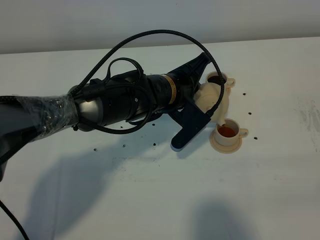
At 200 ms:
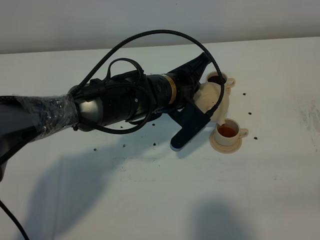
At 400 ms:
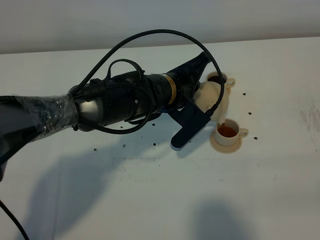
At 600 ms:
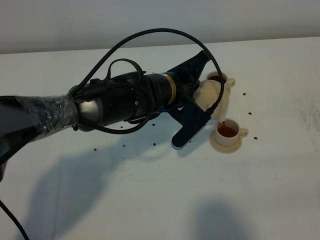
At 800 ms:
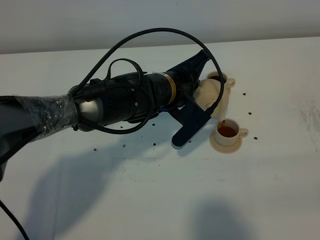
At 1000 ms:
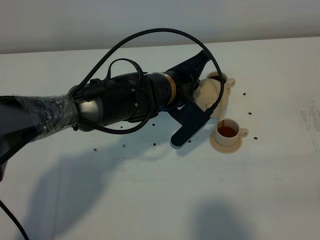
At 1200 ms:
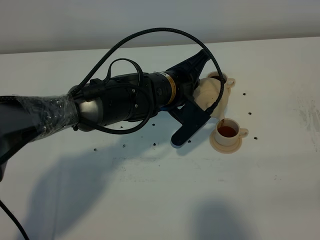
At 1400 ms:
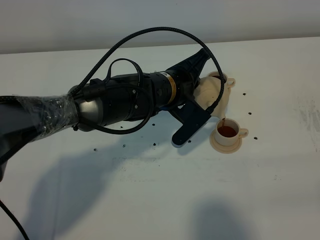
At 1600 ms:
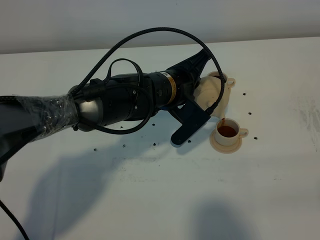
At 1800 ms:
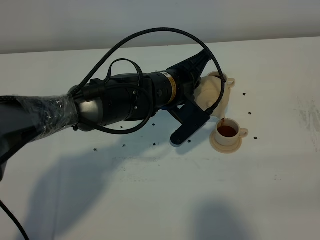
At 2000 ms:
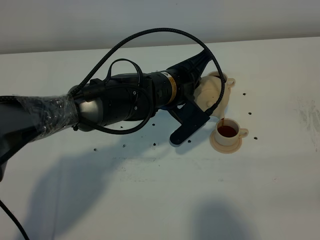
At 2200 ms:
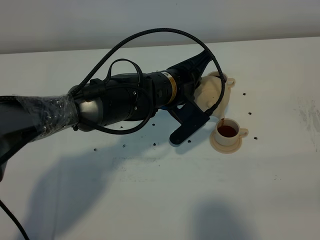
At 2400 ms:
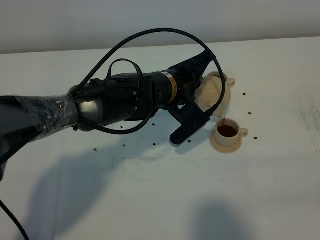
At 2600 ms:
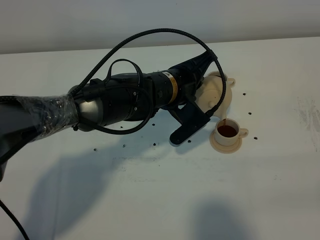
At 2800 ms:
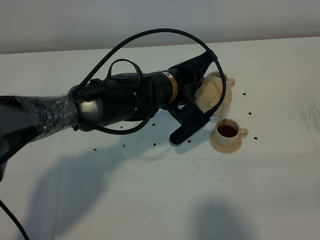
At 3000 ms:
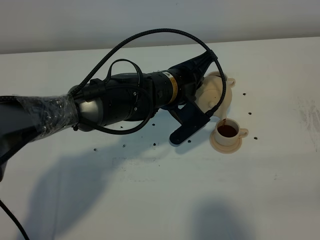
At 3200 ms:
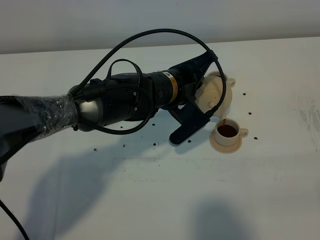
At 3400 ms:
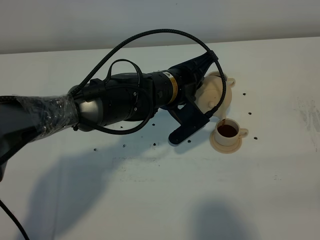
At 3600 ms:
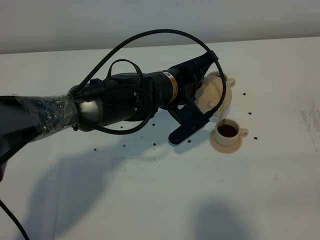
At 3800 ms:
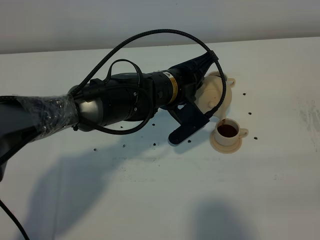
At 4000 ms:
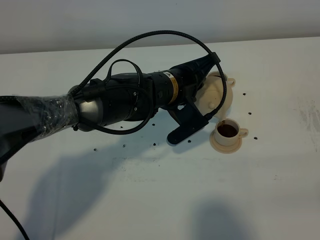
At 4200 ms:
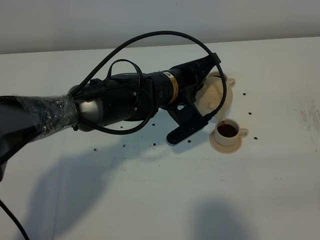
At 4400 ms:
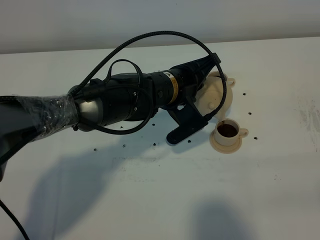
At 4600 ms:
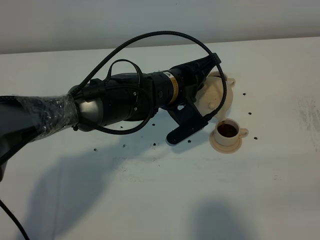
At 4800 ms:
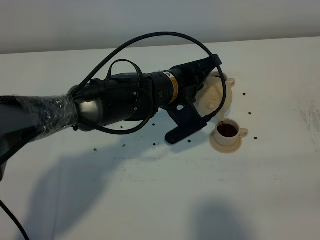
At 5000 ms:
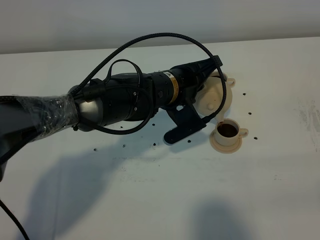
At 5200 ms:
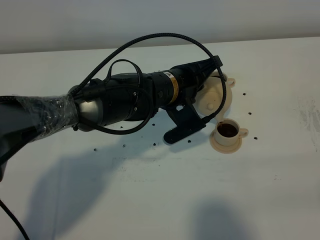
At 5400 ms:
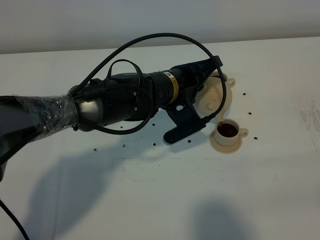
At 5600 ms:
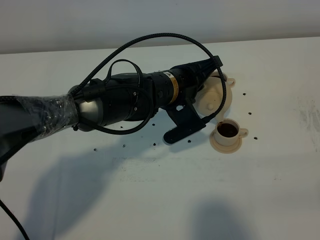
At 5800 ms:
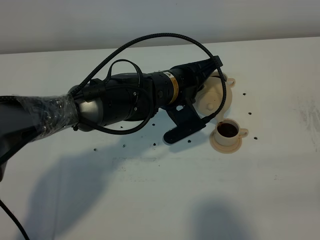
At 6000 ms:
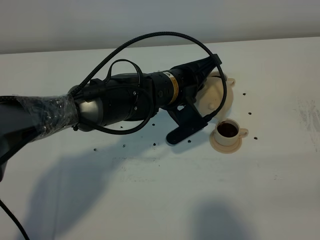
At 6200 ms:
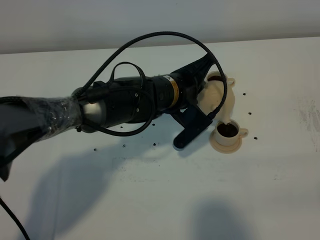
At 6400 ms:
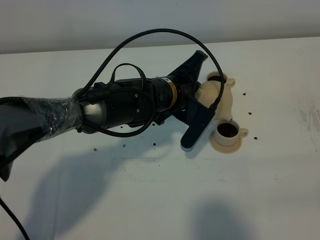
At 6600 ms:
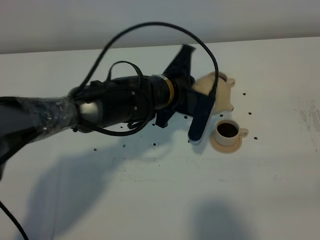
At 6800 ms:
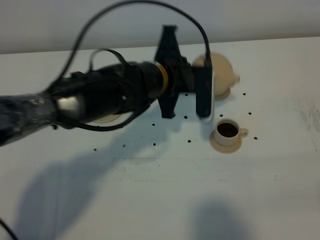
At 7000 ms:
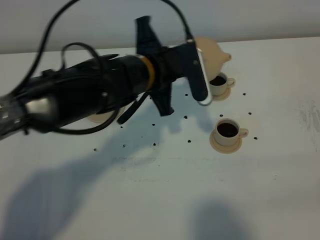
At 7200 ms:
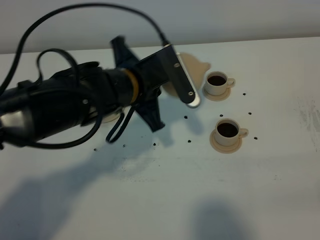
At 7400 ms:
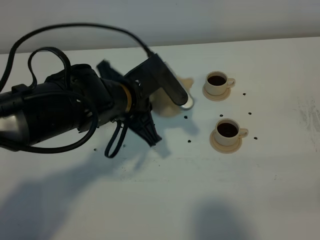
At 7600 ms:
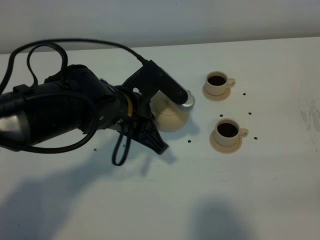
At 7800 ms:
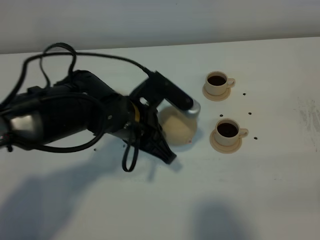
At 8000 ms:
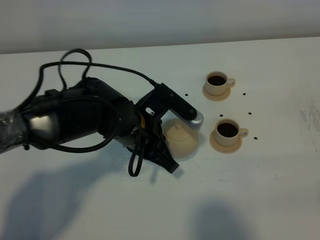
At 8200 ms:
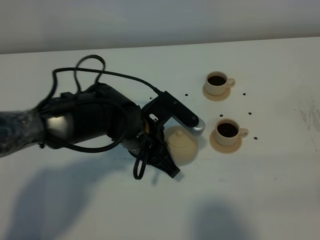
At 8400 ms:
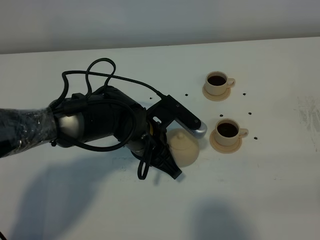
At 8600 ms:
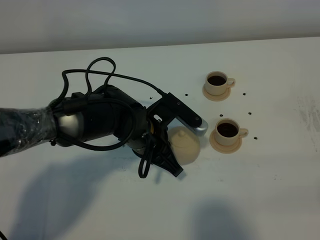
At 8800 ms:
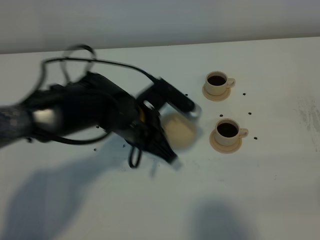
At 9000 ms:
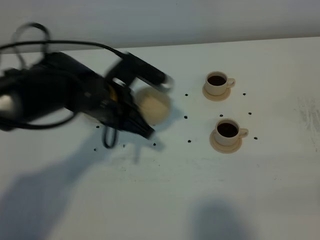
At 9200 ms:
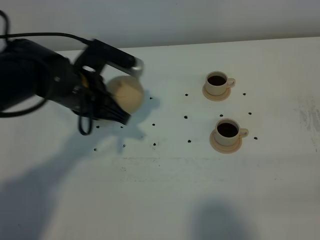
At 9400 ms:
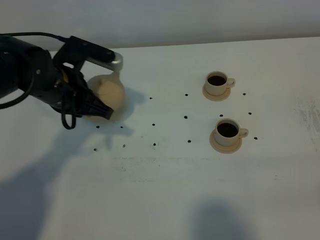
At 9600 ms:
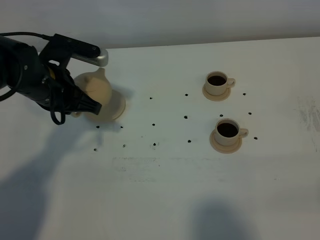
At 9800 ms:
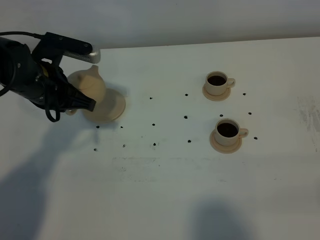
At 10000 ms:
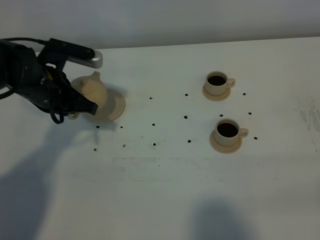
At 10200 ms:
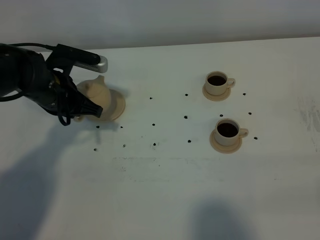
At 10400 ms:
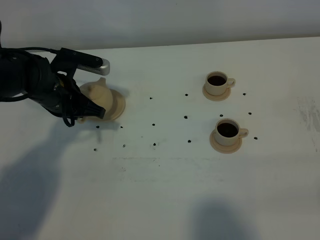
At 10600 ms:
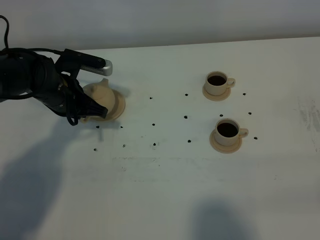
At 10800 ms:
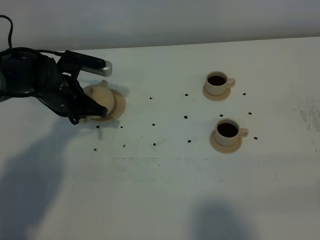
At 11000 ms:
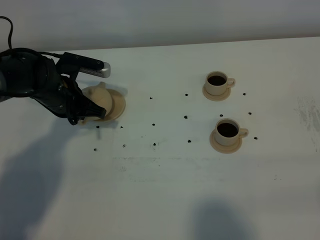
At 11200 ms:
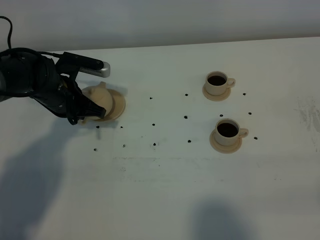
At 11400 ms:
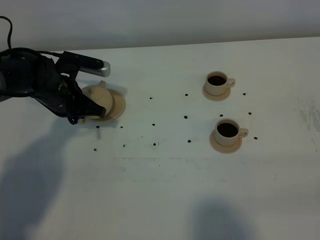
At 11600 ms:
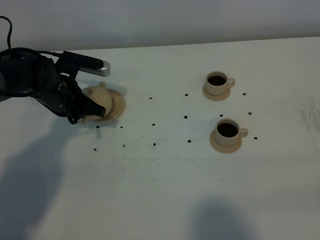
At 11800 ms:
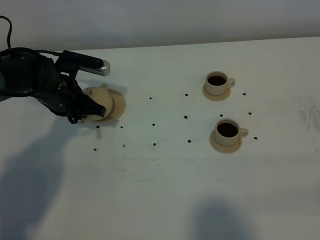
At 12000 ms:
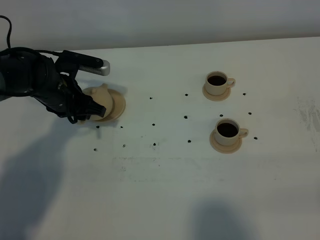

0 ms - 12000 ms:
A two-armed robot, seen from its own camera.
Task of the whole recording: grasp the brown teapot and pour the tea into the two brown teacups one by one, put the brown teapot back in its original place.
Step, 0 ms - 6600 ms: Pour tea into the teacup with the left gripper.
0 ms - 1600 ms: Both grippers stay put.
1600 ms - 3000 ms: Neither gripper changes place.
3000 ms - 4400 ms: The grippers make only small movements.
4400 ms - 6000 ms: Neither gripper changes place.
6000 ms - 7600 ms: The left gripper shifts about 10 cm to the left and backward.
7600 ms - 9000 ms: The left gripper moves about 5 cm.
9000 ms - 10400 ms: The left gripper moves to the left and forward, about 10 cm.
10400 ms - 12000 ms: The left gripper opens its fingers.

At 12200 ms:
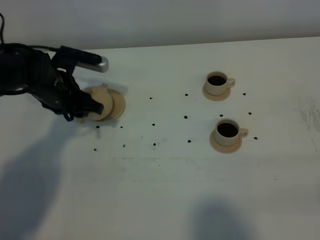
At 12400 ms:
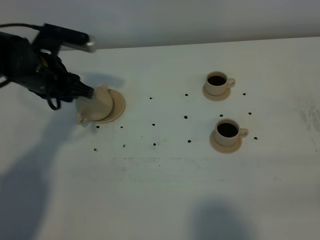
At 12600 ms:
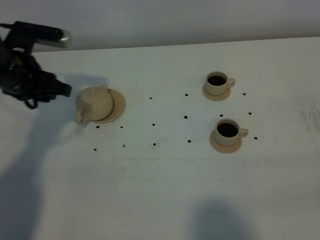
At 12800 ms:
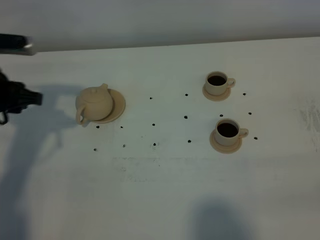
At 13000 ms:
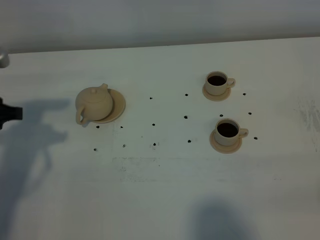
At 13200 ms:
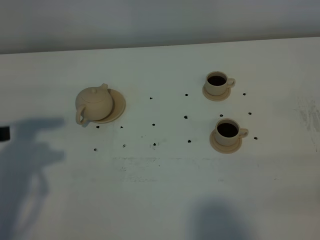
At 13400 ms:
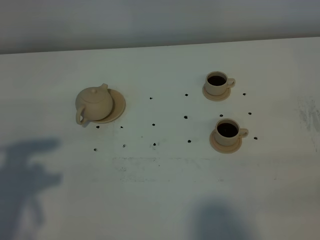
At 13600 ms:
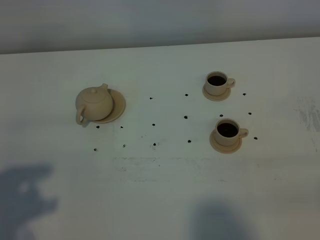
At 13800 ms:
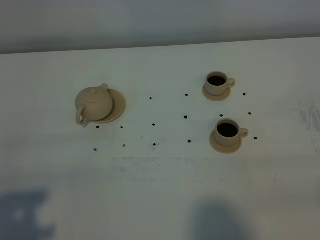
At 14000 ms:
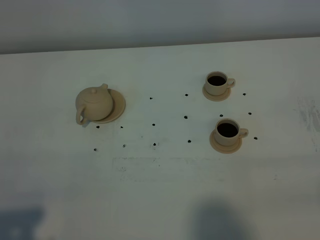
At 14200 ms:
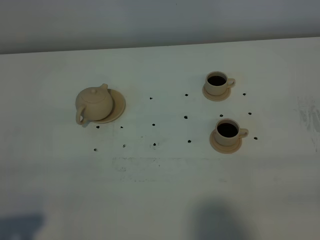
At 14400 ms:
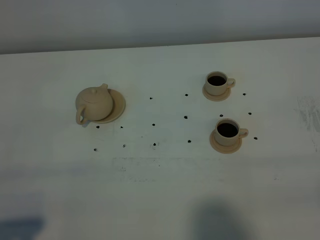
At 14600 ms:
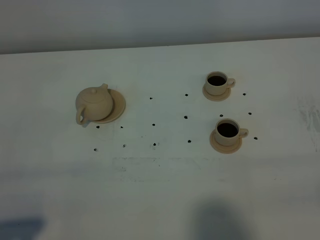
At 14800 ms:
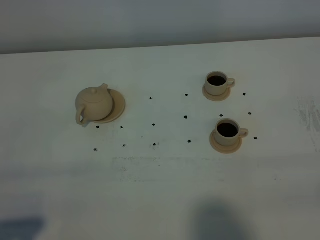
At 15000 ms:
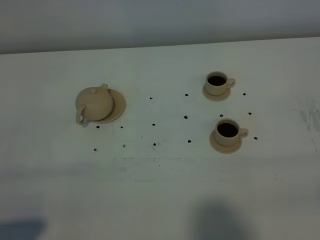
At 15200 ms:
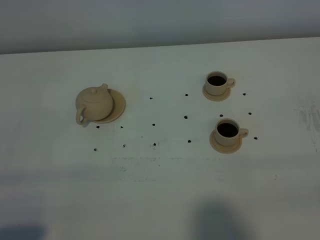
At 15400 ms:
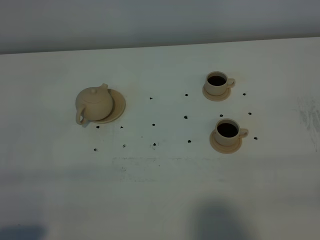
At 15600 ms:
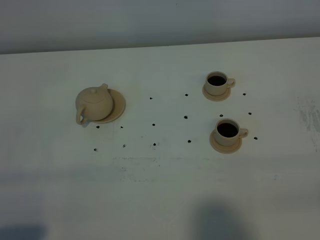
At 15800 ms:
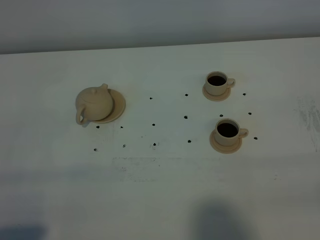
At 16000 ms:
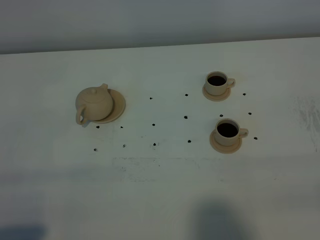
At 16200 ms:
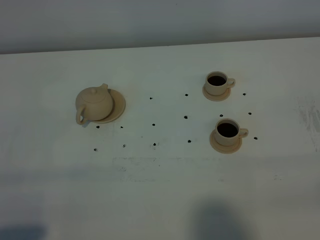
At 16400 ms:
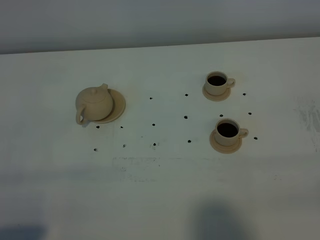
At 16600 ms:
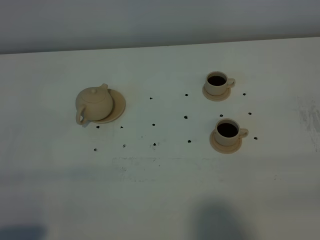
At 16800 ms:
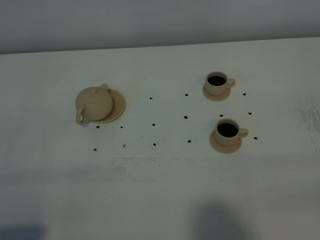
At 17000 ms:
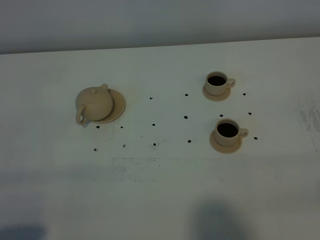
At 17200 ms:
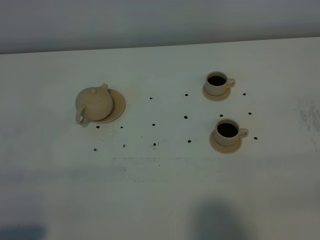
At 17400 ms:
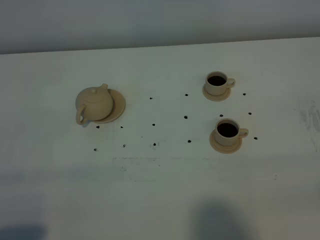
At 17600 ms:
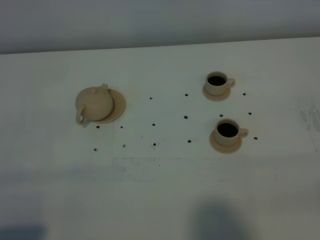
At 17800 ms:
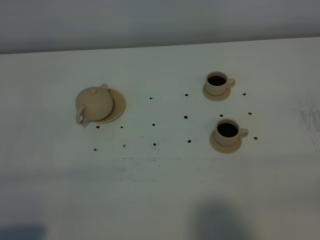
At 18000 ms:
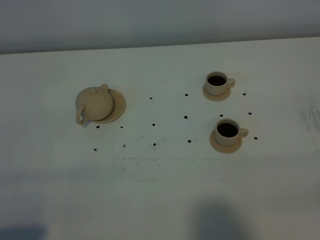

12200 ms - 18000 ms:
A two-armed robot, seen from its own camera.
Task of the whole recording: grasp the brown teapot and pour the tea into the two brown teacups one by one, put the brown teapot back in its original place.
12200 ms - 13600 ms: The left gripper is displaced backward and upward by approximately 30 cm.
13600 ms - 15000 ms: The left gripper goes approximately 10 cm backward and downward.
15000 ms - 18000 ms: Both grippers stay put.

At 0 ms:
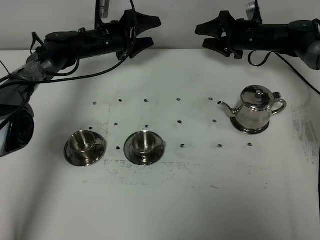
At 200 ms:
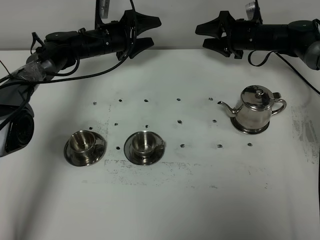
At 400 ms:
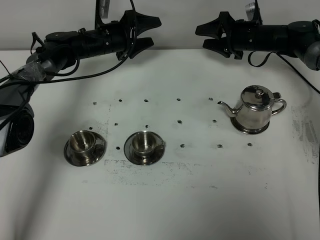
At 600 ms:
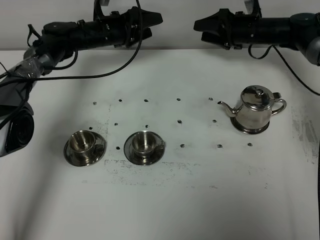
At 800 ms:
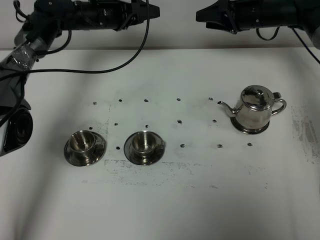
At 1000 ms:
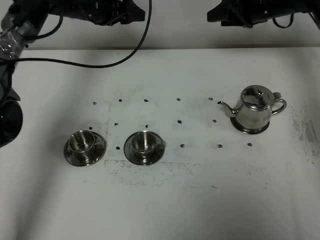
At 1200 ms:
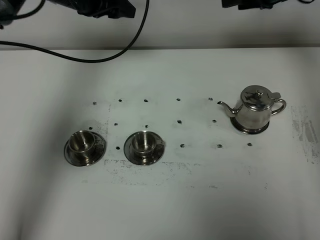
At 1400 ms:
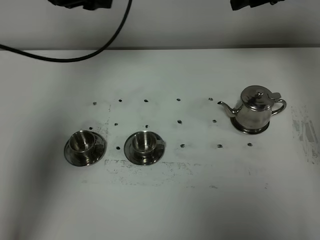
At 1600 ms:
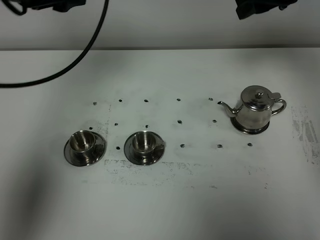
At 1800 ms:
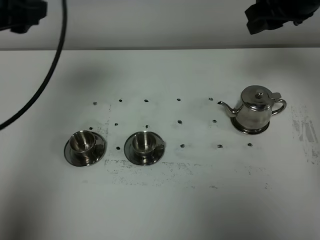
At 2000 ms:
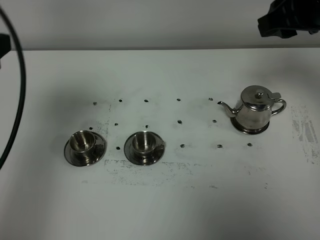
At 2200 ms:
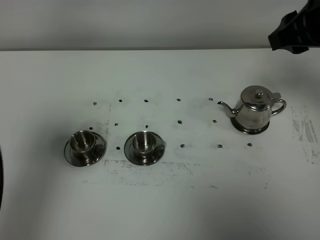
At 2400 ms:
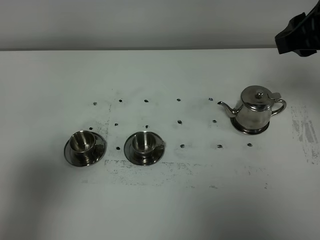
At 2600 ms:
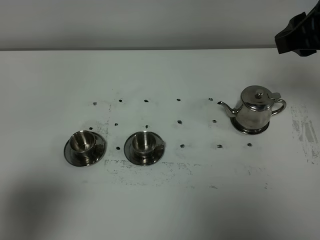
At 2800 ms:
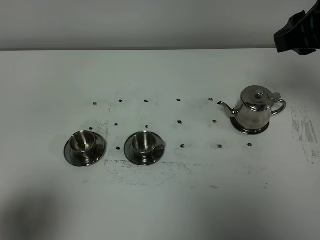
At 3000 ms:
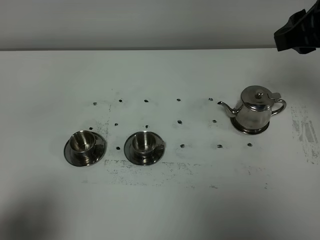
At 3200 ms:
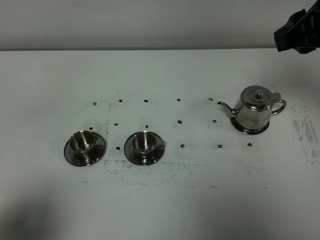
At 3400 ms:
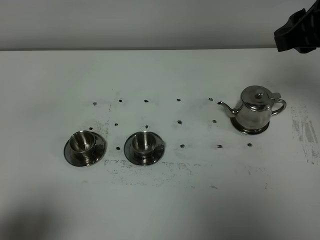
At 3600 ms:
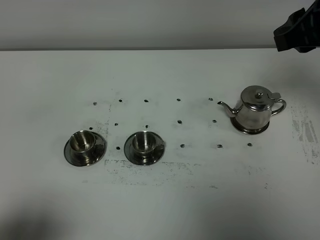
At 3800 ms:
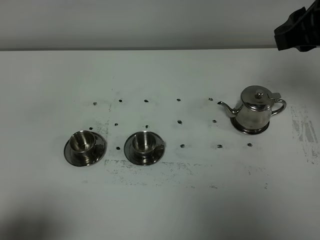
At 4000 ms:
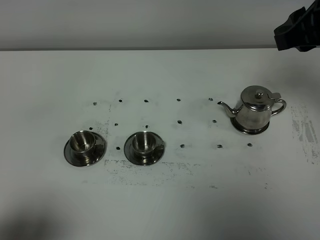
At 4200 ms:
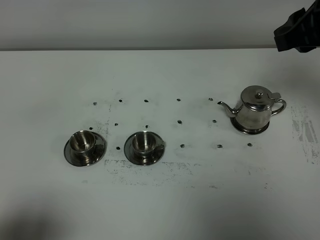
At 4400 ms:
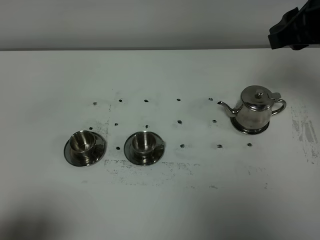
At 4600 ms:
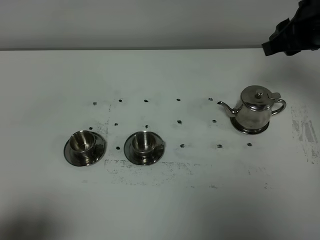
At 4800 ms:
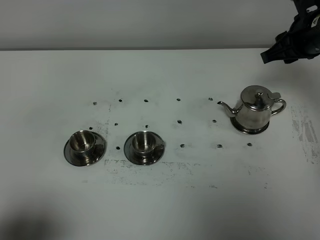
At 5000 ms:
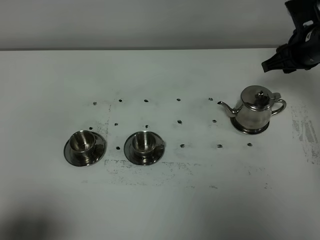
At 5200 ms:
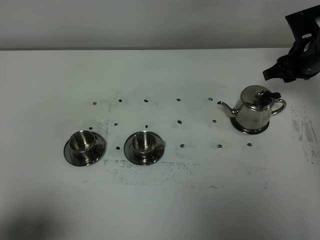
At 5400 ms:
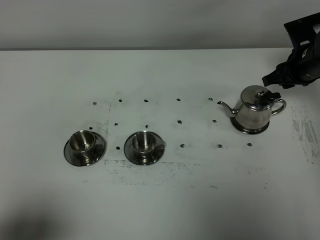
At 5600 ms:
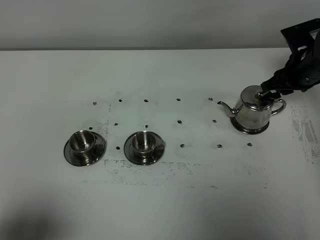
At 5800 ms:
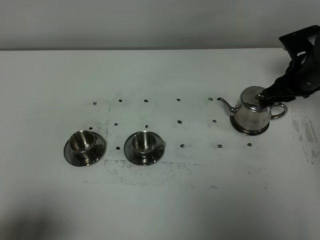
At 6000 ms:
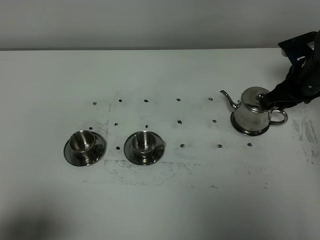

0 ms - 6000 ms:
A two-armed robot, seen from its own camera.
Task of the whole recording: grasp the stainless steel teapot and pour the tea into the two stainless steel teacups one by one, put the stainless steel teapot back in its original place.
0 ms - 1600 ms: Both grippers travel together upward and backward, roughly 30 cm.
1600 ms - 3000 ms: The left gripper travels backward by some 35 cm; the right gripper moves backward, approximately 15 cm.
4400 ms - 6000 ms: The right gripper moves downward and forward, approximately 20 cm.
